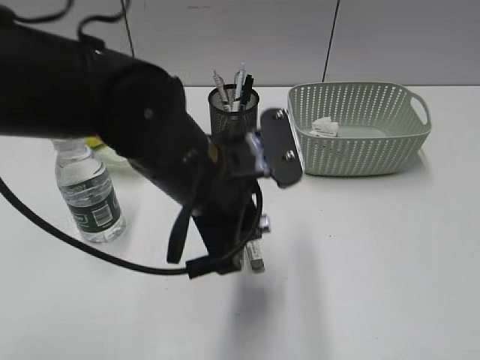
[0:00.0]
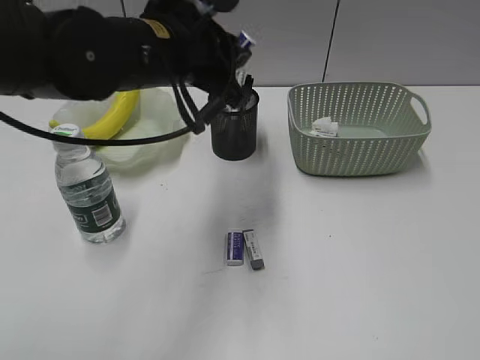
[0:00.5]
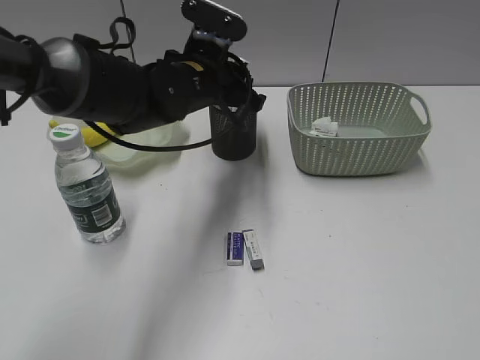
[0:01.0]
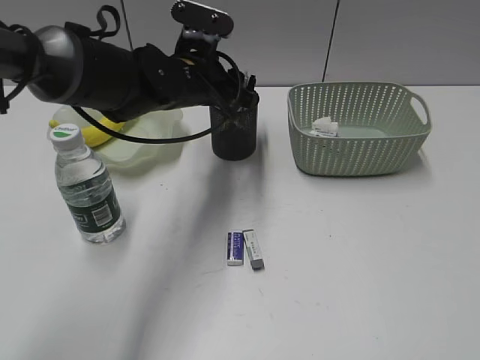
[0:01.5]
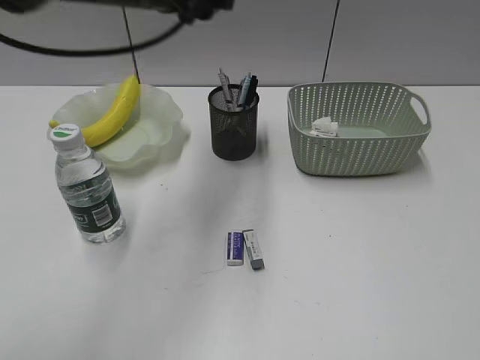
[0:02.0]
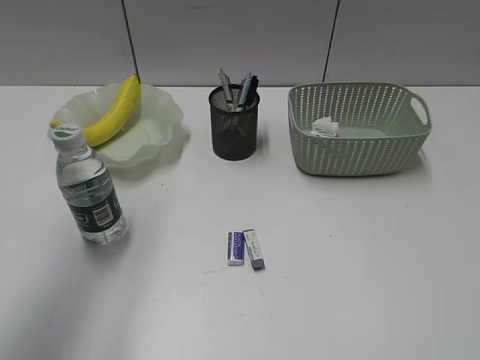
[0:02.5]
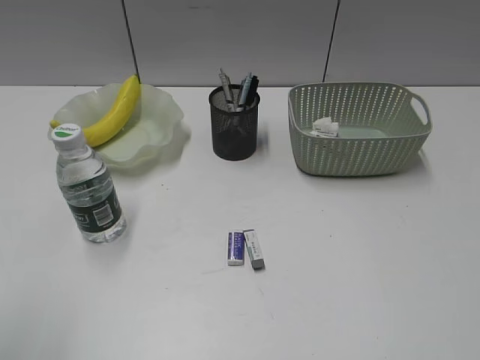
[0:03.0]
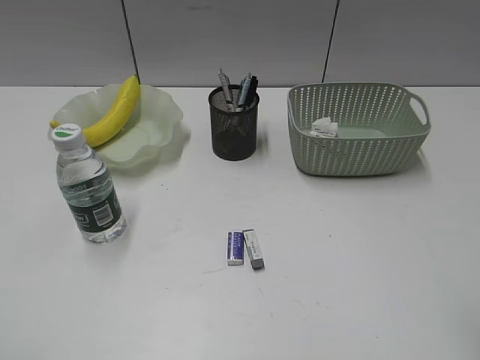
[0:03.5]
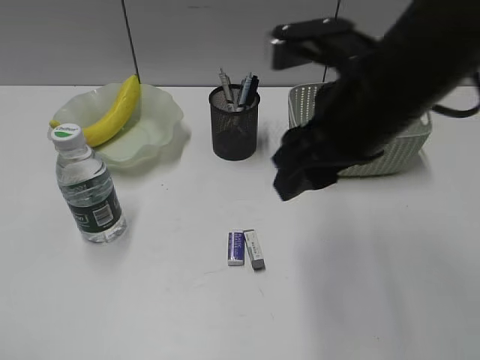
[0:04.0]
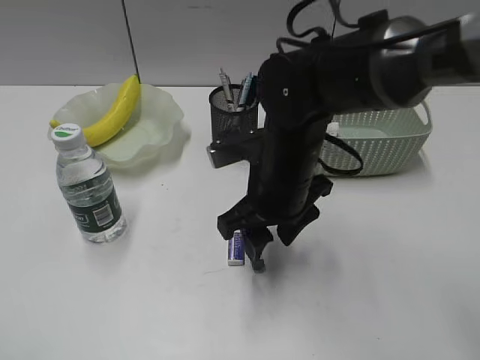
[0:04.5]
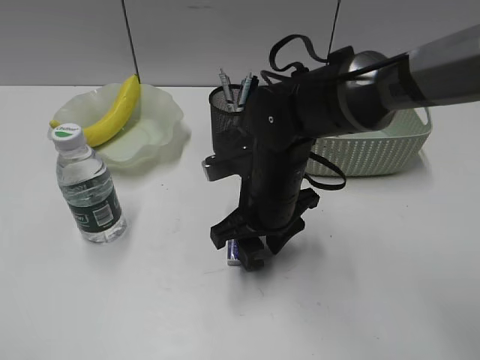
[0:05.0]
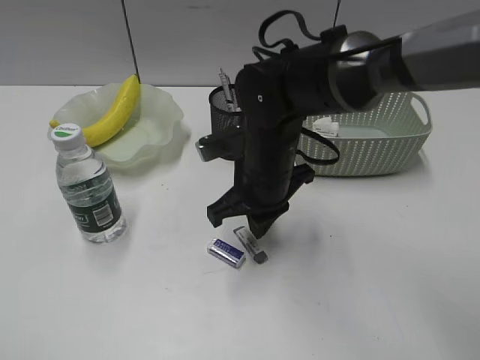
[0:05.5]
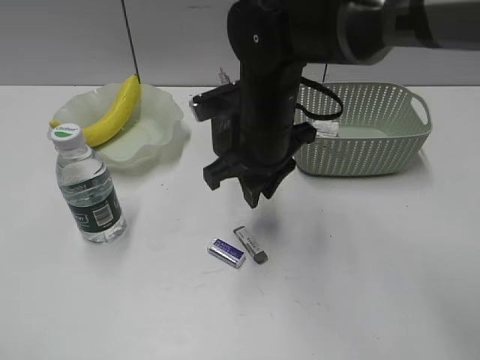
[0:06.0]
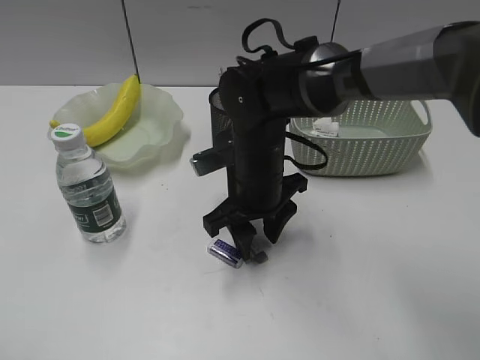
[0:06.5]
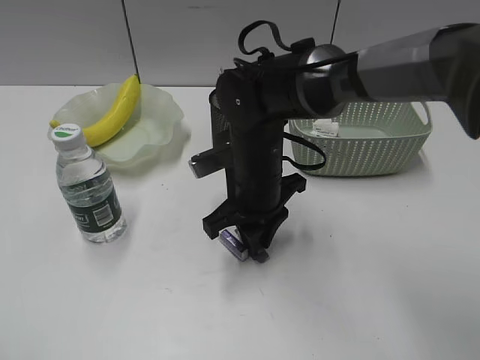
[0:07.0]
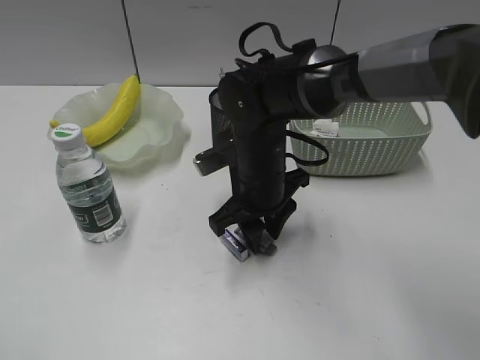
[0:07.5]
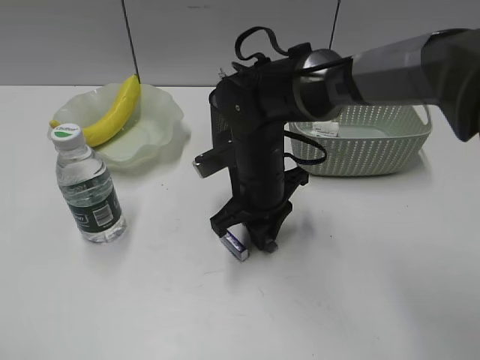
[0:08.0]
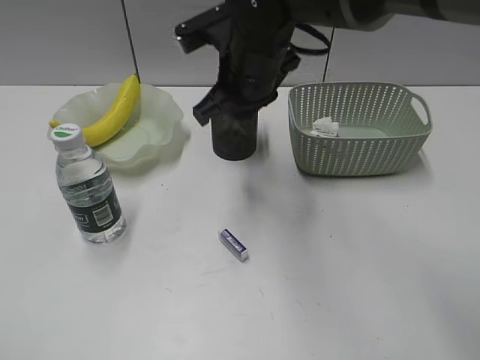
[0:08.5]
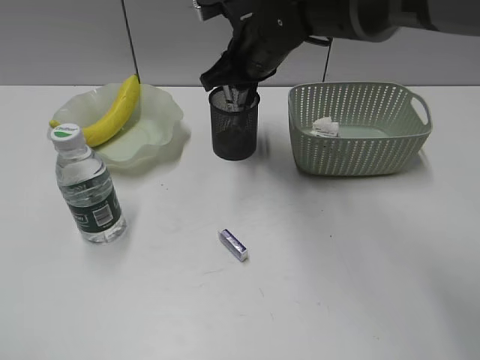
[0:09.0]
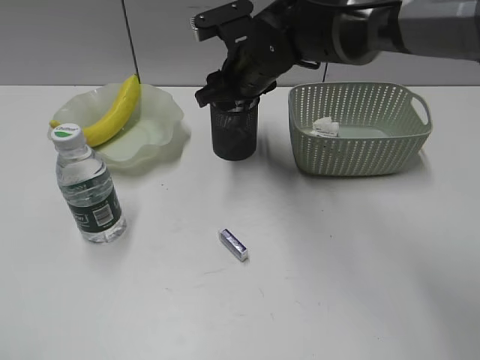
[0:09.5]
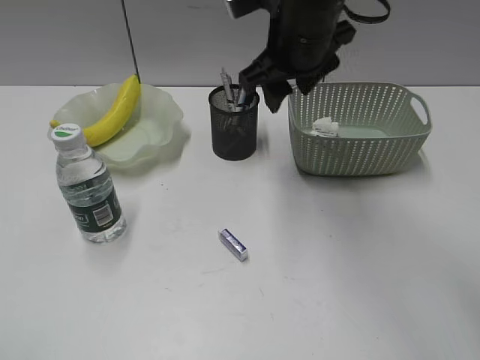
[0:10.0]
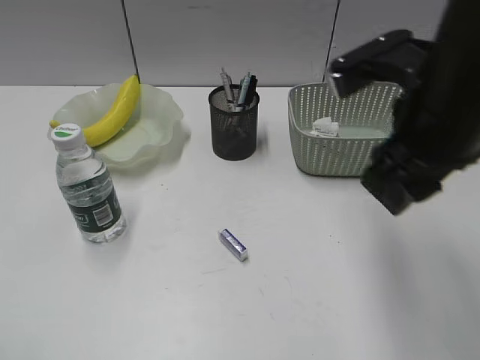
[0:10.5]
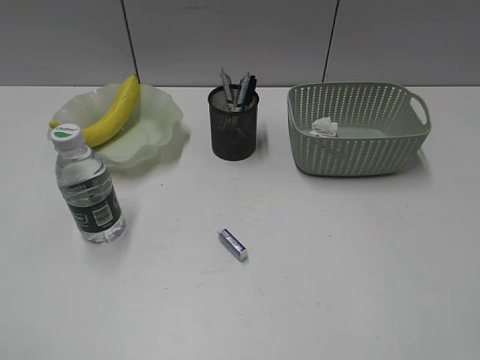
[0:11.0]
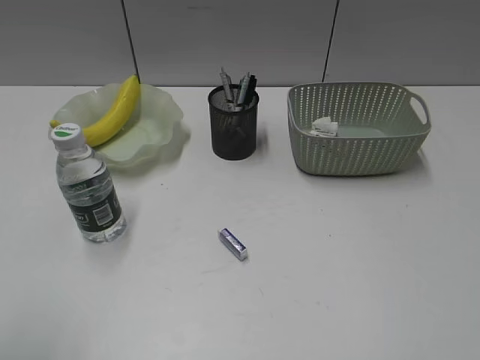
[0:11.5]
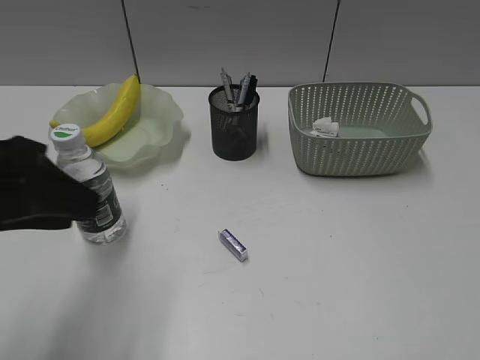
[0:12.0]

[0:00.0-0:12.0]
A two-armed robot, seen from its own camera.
Step, 0:00.0 to 0:01.5: Place the eraser in pen holder with left gripper.
Step, 0:02.0 to 0:07.5: Grasp the eraser with right gripper.
Step, 0:08.0 to 0:09.5: Place the eraser in pen holder with right gripper.
0:00.0 to 0:02.0: The left gripper heads upward, forward and to the left, covering about 20 cm, and opens.
0:02.0 to 0:04.0: The right gripper moves forward and to the left, about 35 cm, and opens its fingers. The left gripper travels backward and to the left by approximately 40 cm.
0:04.0 to 0:06.0: The right gripper heads downward, to the left and forward, covering approximately 15 cm, and closes its fingers.
0:06.0 to 0:08.0: The right gripper heads downward, covering about 5 cm.
0:08.0 to 0:10.0: The right gripper goes up and down, about 15 cm each way, reversing 2 times, and opens.
0:10.0 to 0:12.0: The right gripper is displaced backward and to the right by approximately 50 cm, while the left gripper goes about 20 cm forward and to the right.

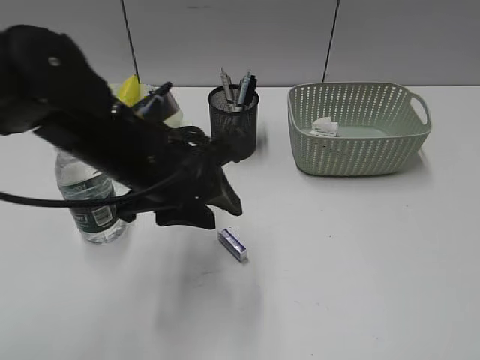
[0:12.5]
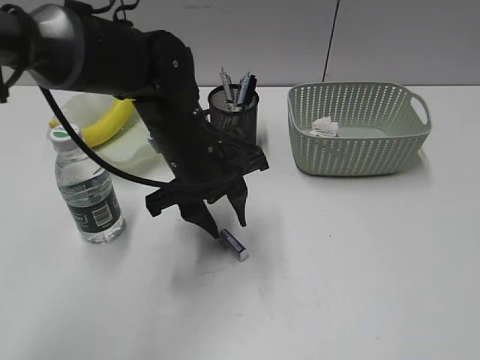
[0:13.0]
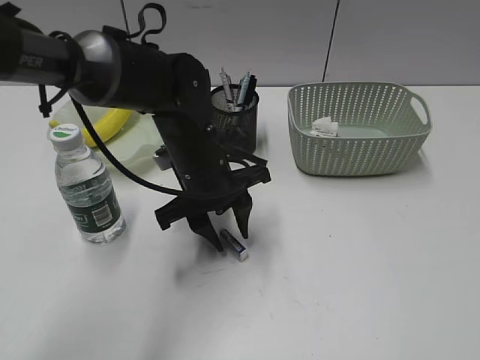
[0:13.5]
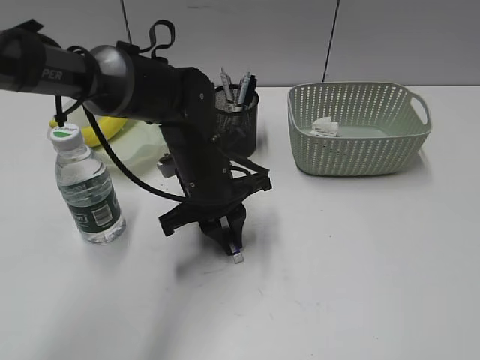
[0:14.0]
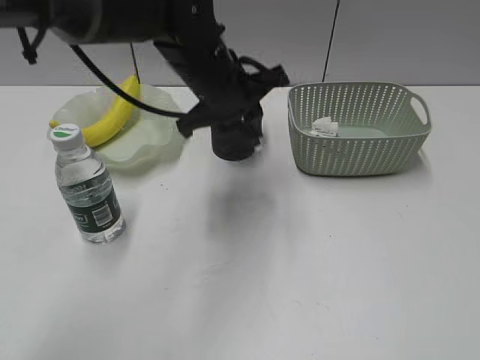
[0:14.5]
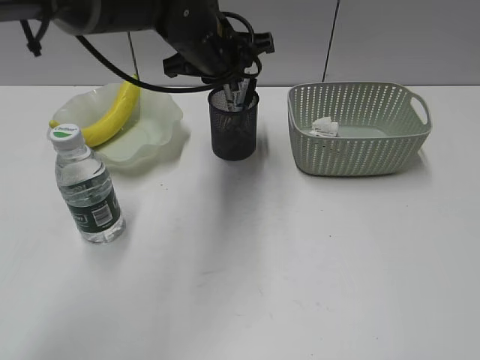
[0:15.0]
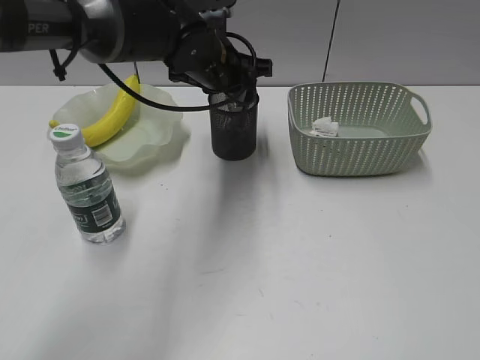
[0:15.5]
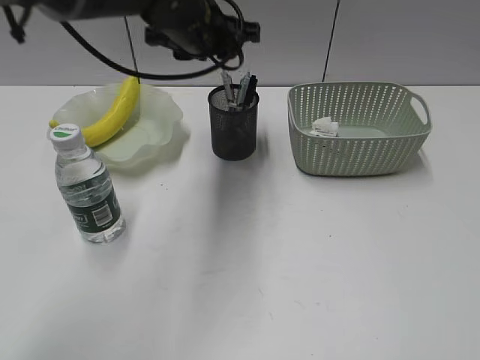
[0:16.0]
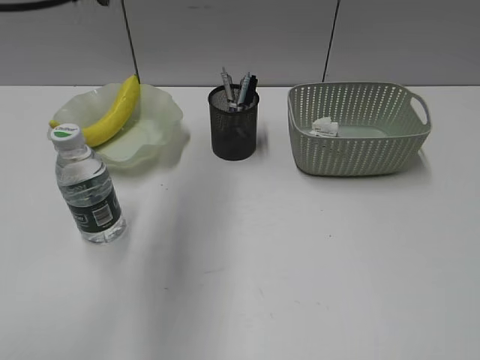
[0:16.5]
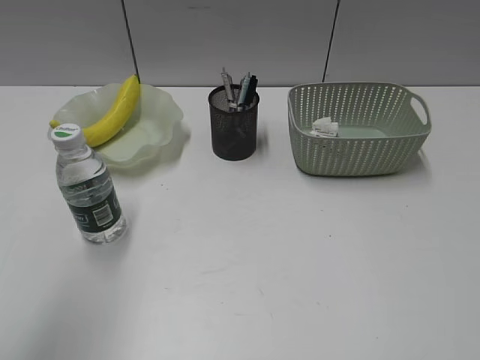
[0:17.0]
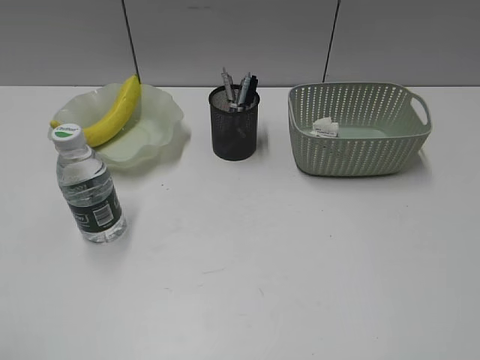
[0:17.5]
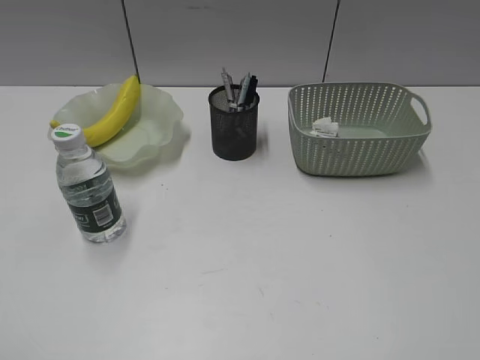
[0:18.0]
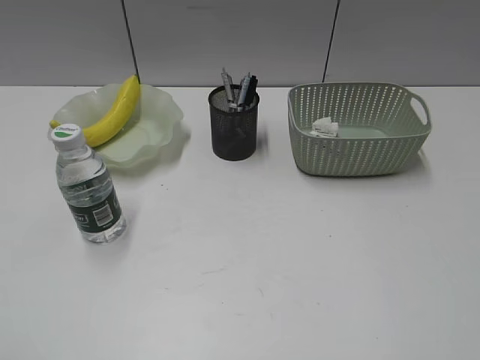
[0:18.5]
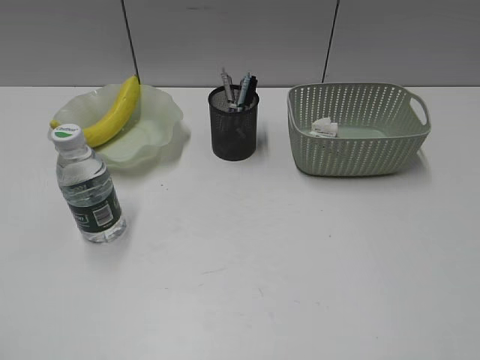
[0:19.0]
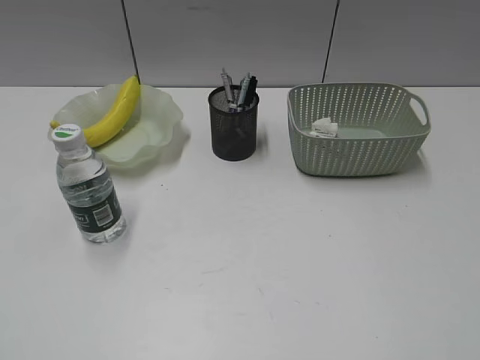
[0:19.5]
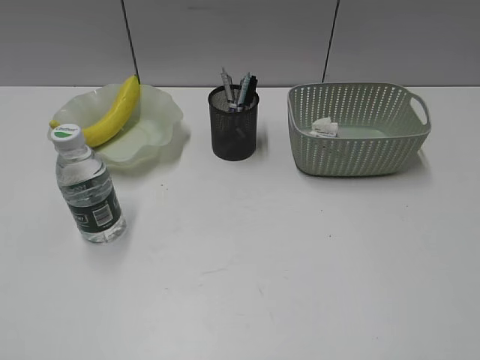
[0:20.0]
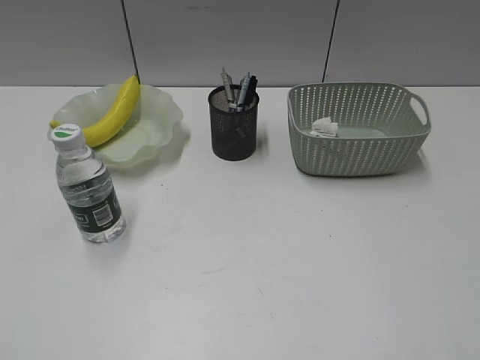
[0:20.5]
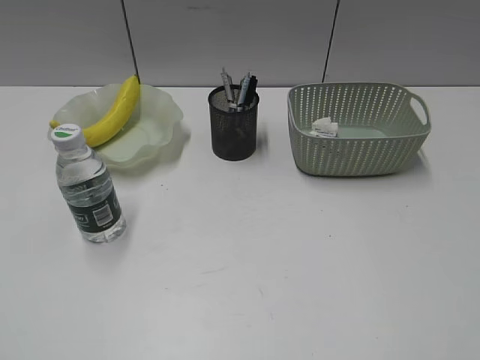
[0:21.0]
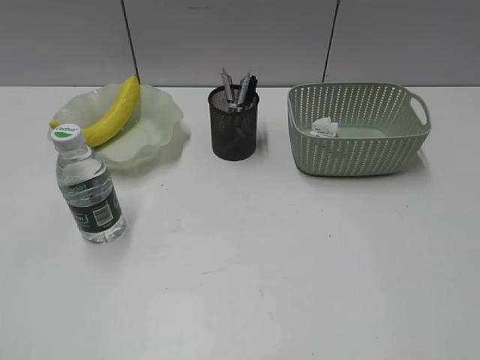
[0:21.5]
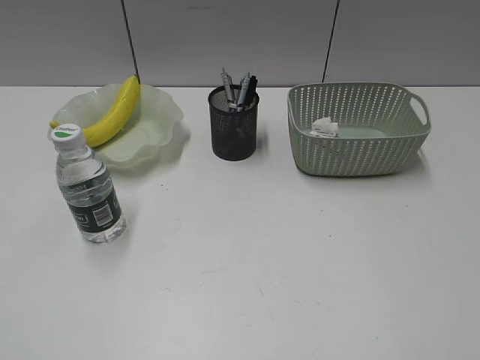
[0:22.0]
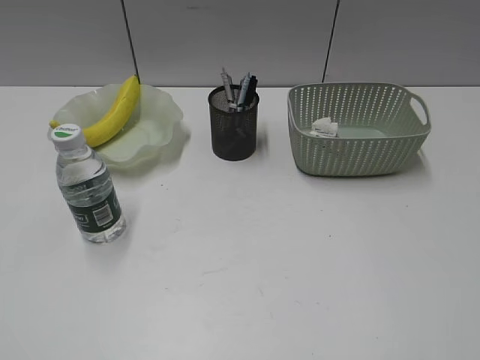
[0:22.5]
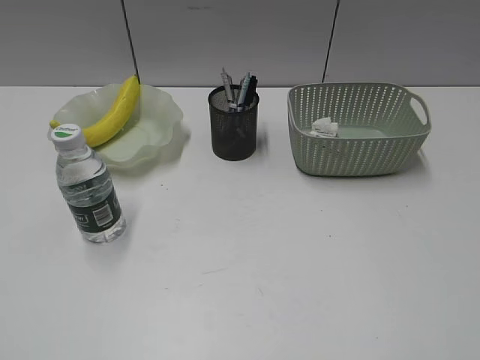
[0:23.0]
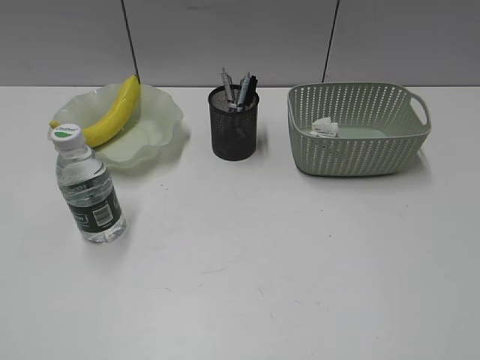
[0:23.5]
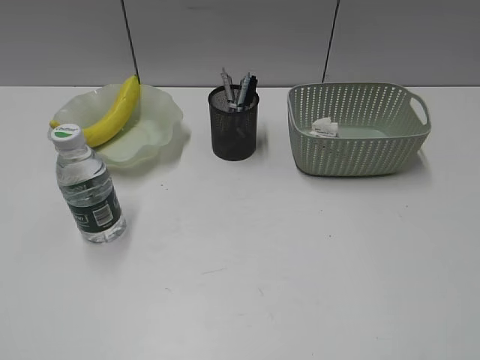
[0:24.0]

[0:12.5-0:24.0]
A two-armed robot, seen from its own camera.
Step, 0:14.5 to 0:15.5: Place the eraser in pen holder with left gripper.
0:12.5 to 0:14.5: The left gripper travels forward and to the right by some 15 cm, and closes.
0:14.5 to 0:16.5: The left gripper heads upward and to the left, covering approximately 20 cm.
0:16.5 to 0:18.5: The left gripper moves backward and to the left, some 35 cm.
0:20.0 to 0:24.0: Both grippers stay put.

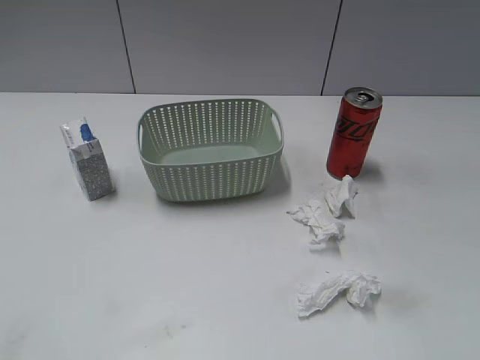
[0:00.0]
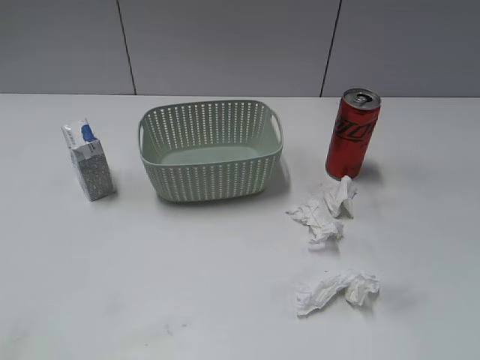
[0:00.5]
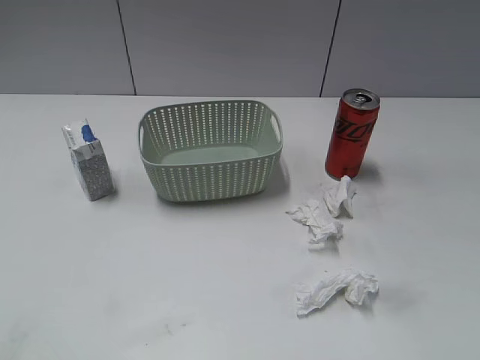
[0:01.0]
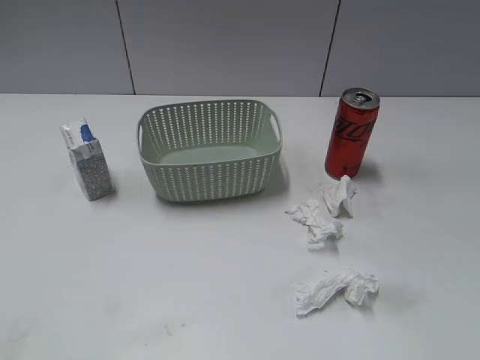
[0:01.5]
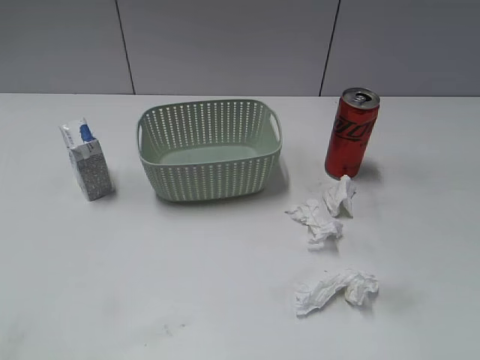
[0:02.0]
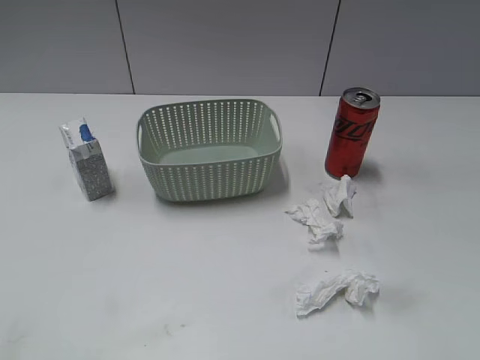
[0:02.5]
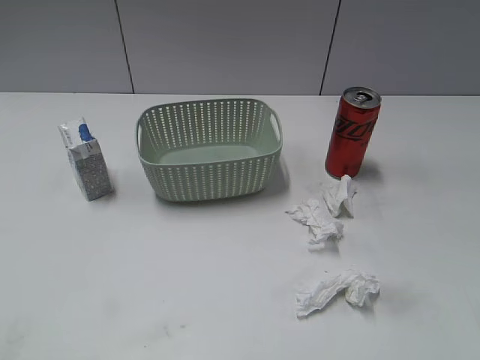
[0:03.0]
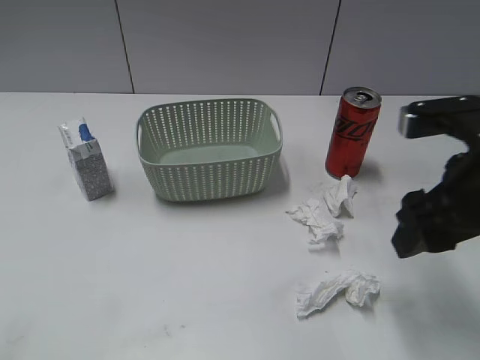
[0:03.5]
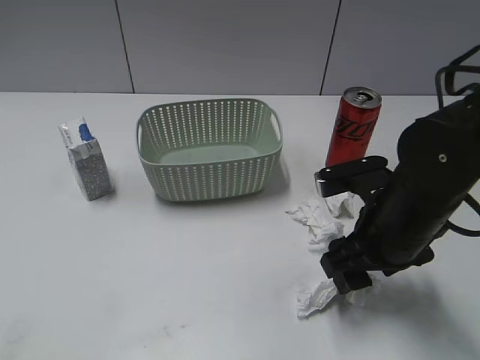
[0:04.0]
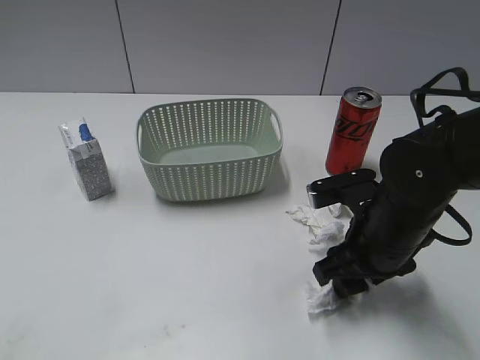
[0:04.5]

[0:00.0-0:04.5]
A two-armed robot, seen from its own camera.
0:02.0 to 0:04.5: The right gripper travels forward, downward and to the left by some 30 cm.
